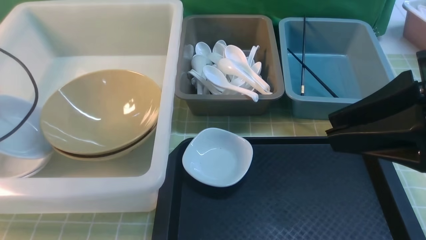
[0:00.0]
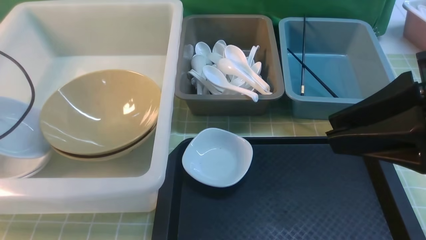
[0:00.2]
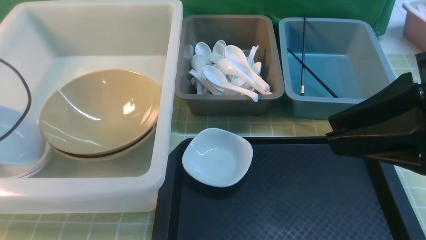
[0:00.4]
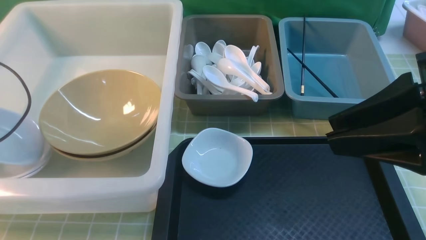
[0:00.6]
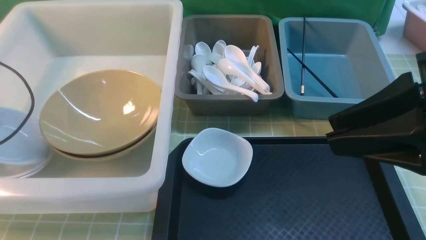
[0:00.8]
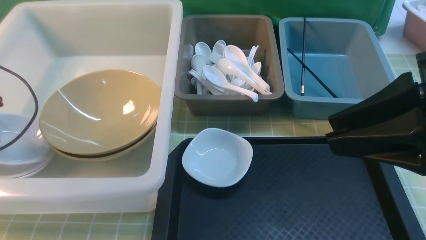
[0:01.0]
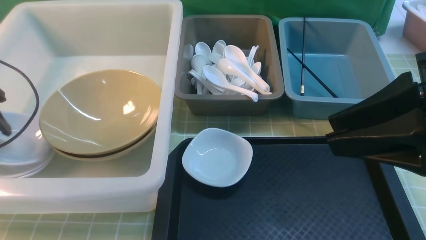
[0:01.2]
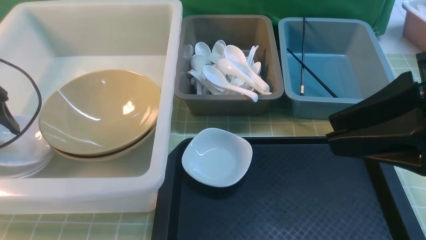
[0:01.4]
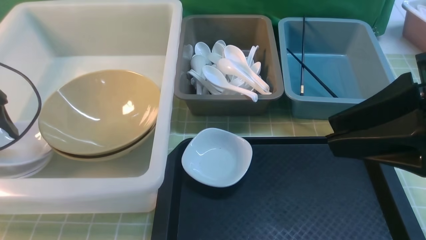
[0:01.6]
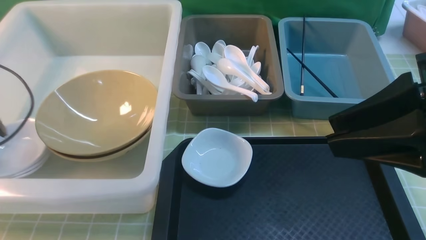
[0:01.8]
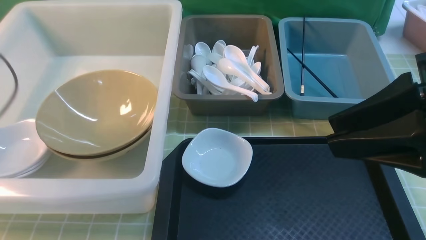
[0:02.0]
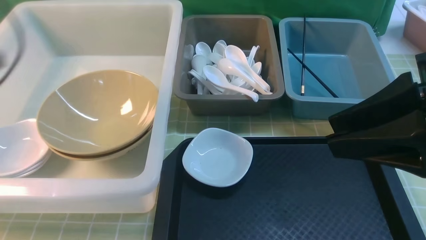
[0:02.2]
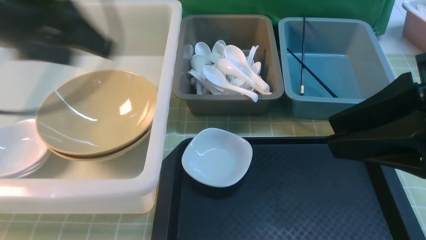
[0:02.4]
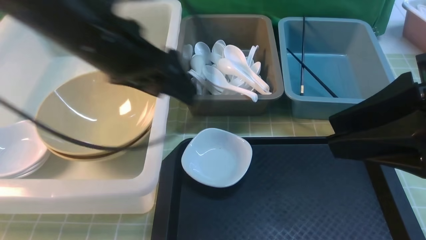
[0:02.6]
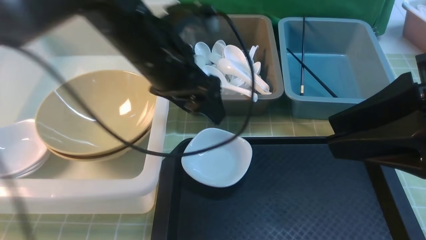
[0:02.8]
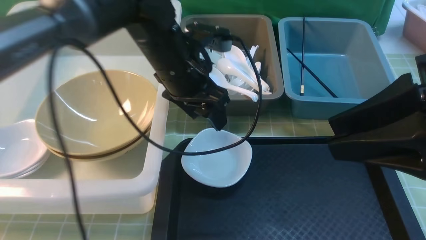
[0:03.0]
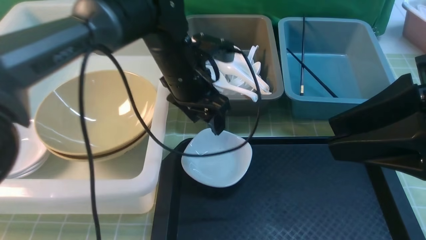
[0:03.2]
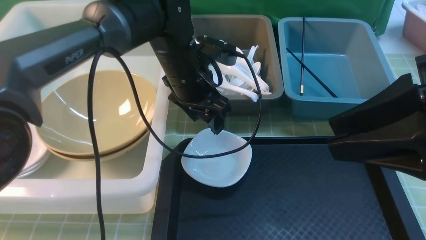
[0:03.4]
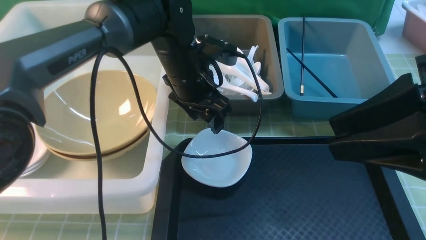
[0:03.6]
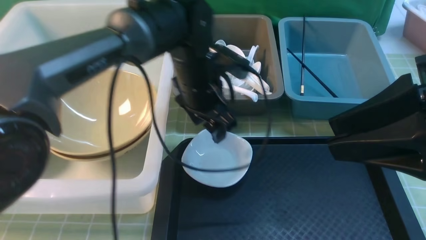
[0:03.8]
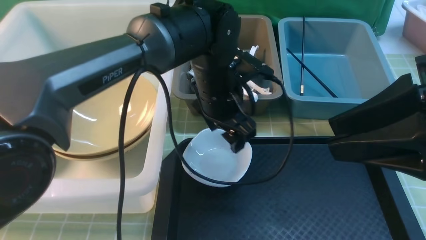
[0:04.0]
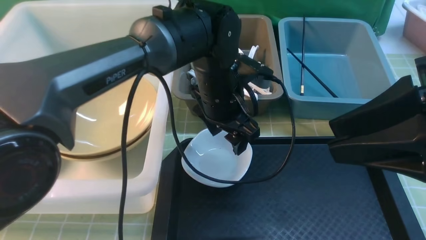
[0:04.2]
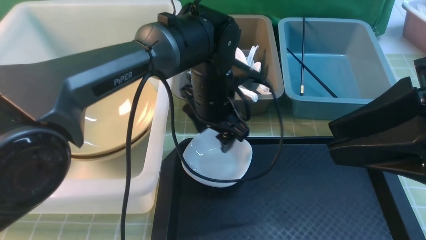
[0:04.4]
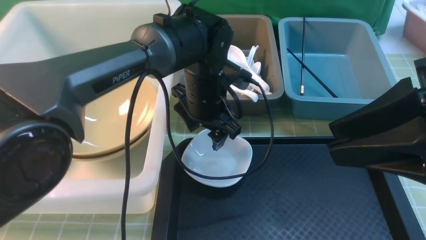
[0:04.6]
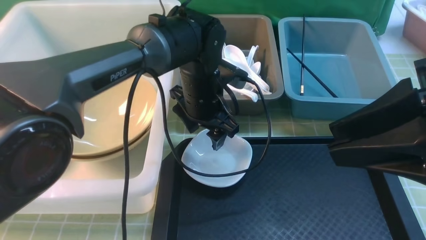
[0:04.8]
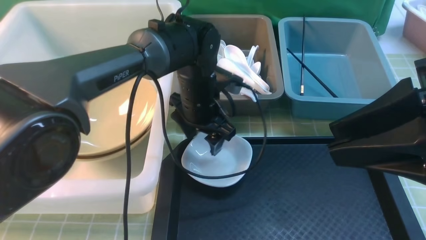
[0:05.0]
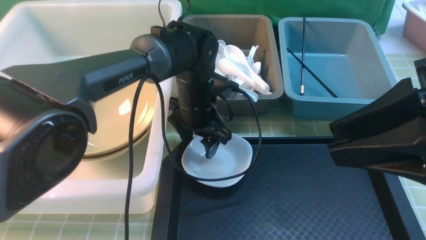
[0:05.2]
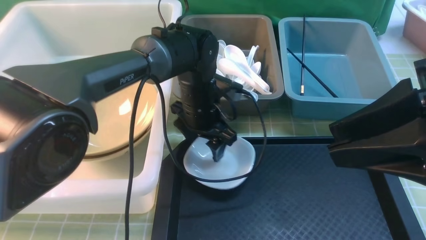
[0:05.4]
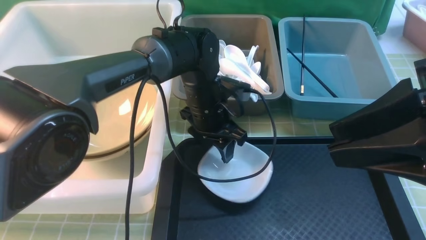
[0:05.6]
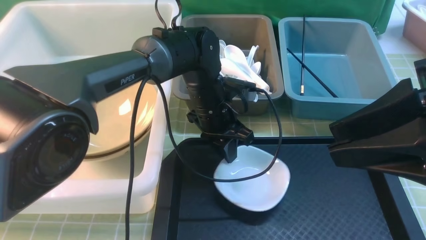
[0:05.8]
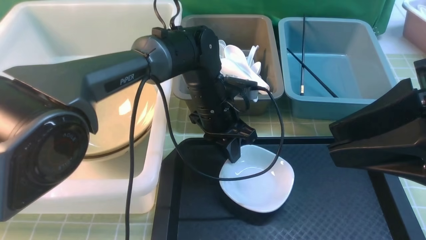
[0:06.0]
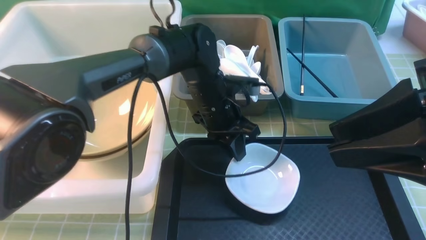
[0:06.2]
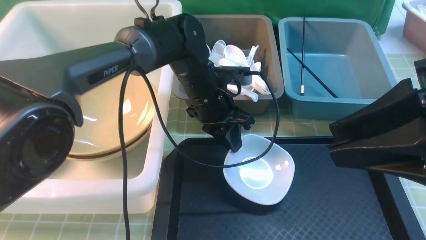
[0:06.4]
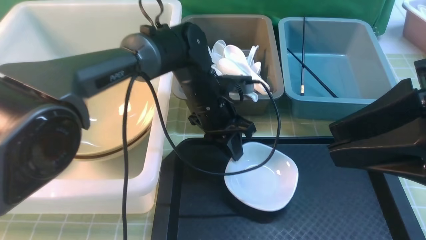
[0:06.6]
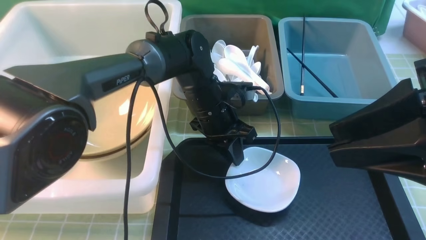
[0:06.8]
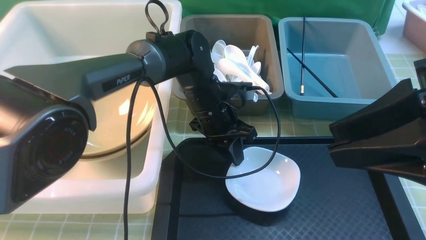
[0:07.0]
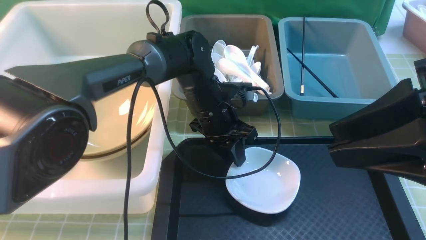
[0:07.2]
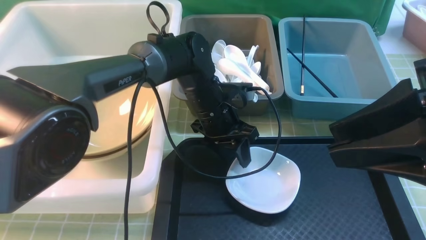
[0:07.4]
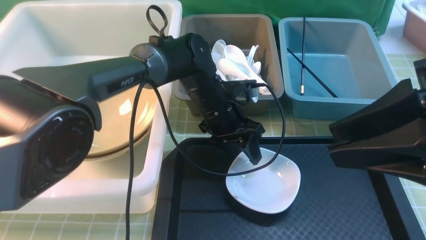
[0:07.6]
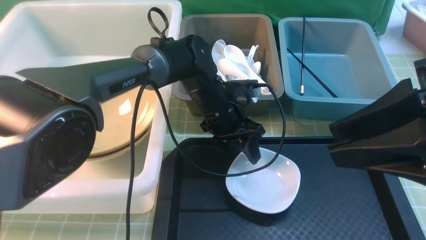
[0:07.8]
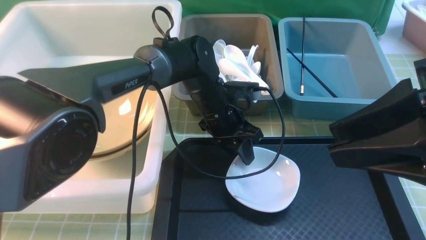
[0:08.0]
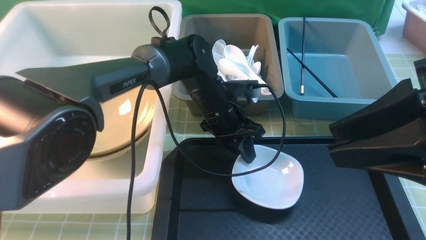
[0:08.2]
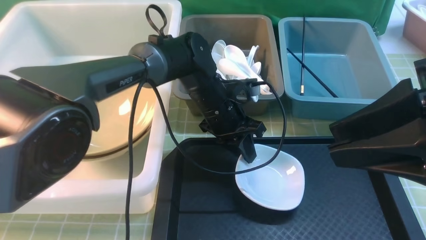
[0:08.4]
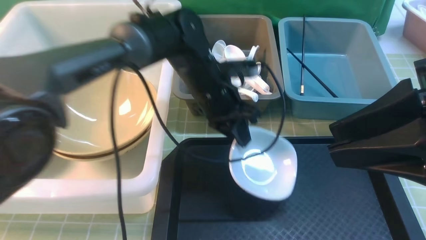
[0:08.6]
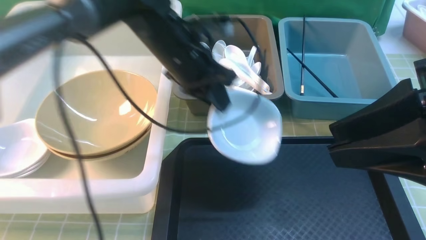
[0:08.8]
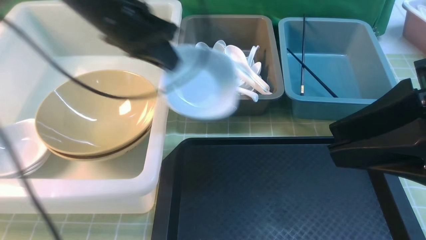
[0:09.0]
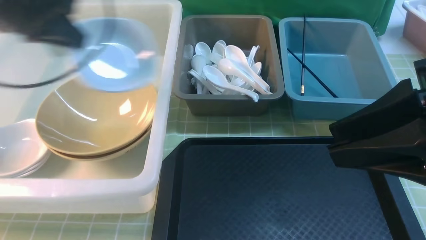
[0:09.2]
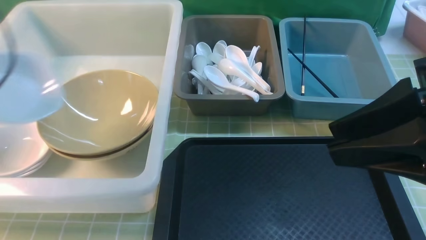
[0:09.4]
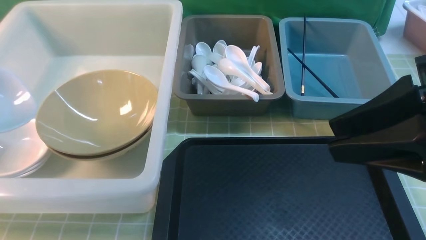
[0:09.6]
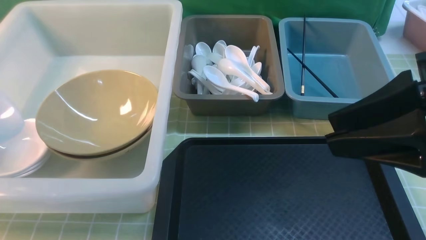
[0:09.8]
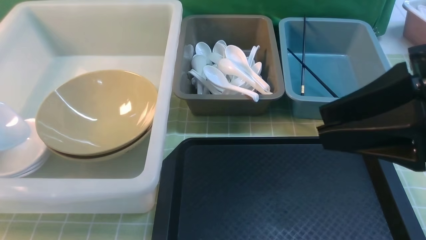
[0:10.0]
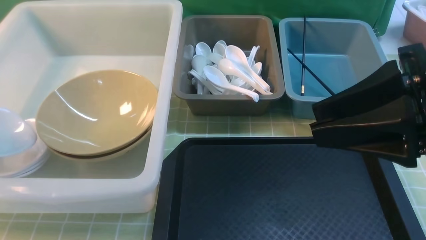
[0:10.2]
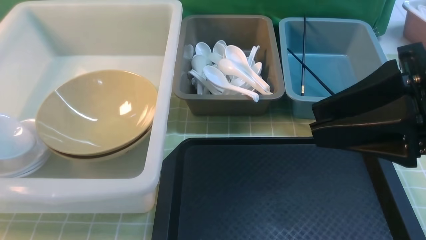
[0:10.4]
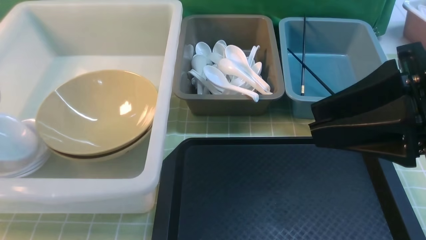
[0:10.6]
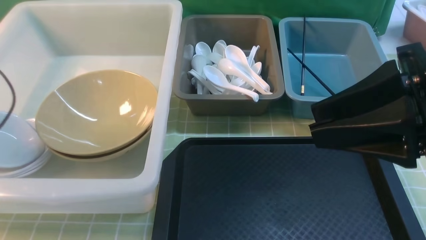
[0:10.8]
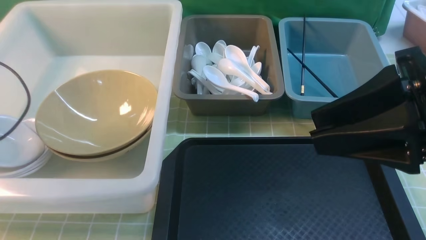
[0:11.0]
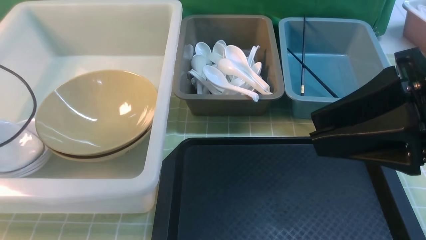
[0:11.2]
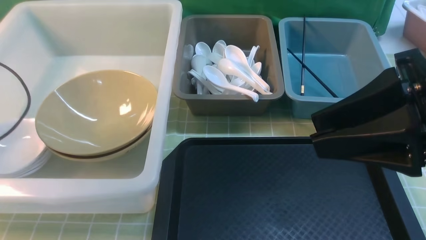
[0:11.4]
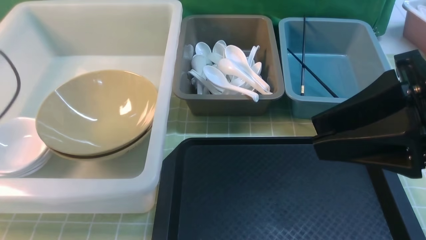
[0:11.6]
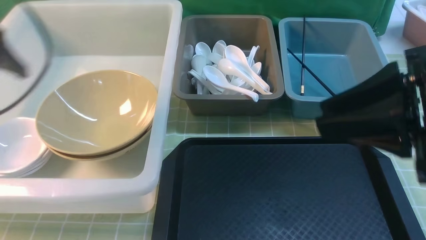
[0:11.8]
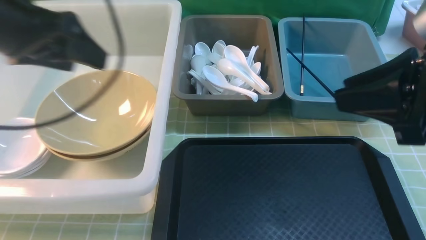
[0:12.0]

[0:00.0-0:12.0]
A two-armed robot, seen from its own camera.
Task of the whole recording: on green table put chopsticks spoon bowls plates into blue grey white boxes.
Step, 0:02.0 to 0:08.6: use the left arm to grab the plate.
0:00.0 to 0:01.6: The left gripper opens up.
0:01.6 to 0:03.0: The left gripper travels to the right by approximately 35 cm.
0:03.0 to 0:04.4: The left gripper is displaced downward and to the right by some 5 cm.
0:04.4 to 0:06.0: The left gripper closes its fingers.
0:06.0 to 0:07.6: The left gripper opens its fingers.
0:07.6 to 0:09.0: The left gripper is displaced upward and to the left by about 25 cm, and closes.
0:09.0 to 0:10.4: The left gripper goes roughly 25 cm to the left.
0:10.4 to 0:12.0: The left gripper goes roughly 25 cm to the right and upward, and opens its fingers.

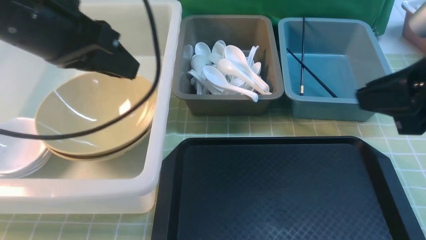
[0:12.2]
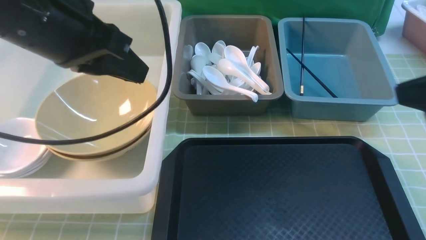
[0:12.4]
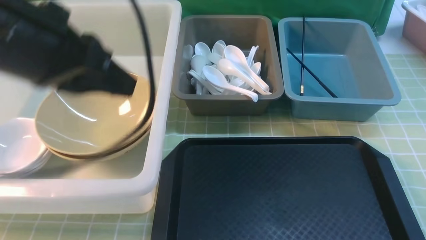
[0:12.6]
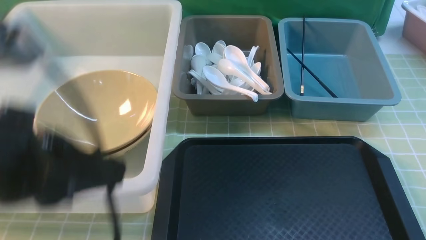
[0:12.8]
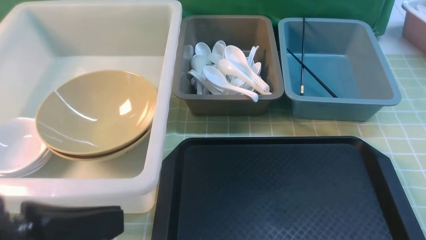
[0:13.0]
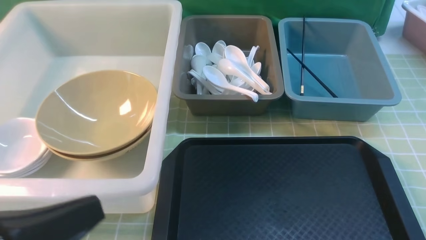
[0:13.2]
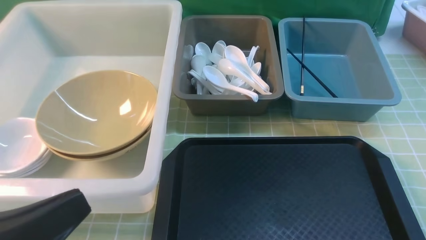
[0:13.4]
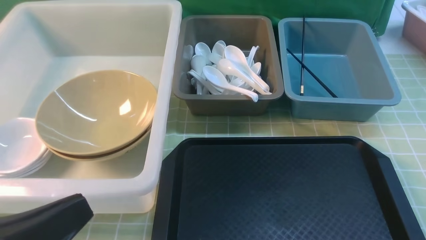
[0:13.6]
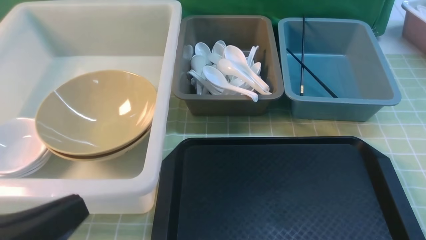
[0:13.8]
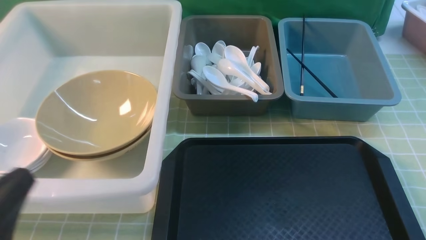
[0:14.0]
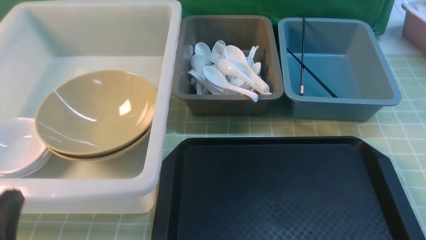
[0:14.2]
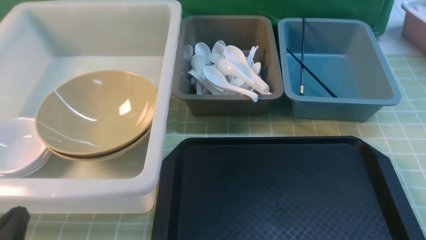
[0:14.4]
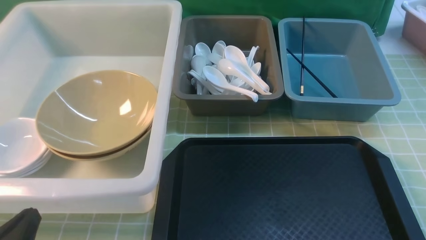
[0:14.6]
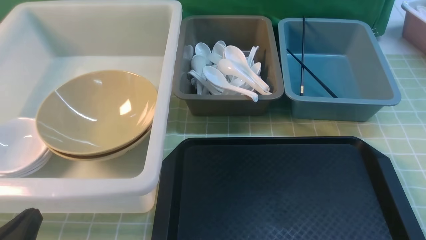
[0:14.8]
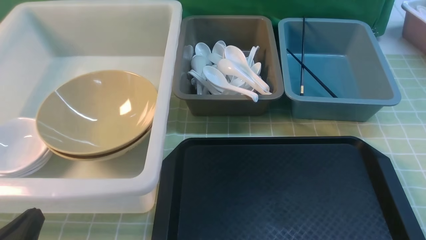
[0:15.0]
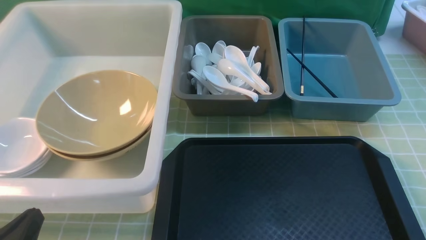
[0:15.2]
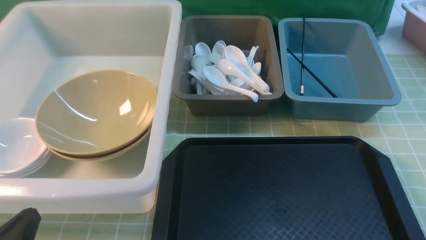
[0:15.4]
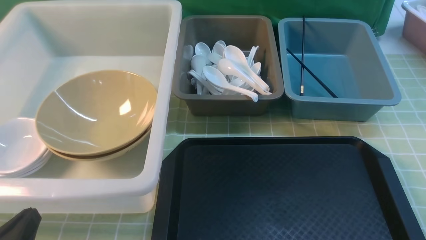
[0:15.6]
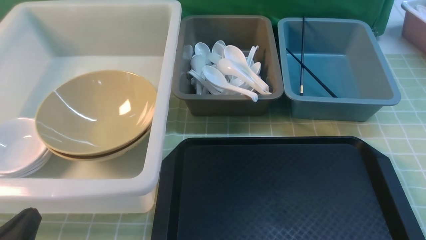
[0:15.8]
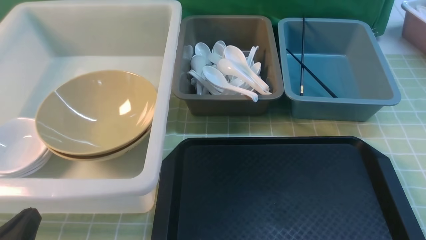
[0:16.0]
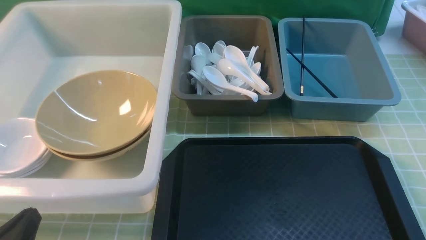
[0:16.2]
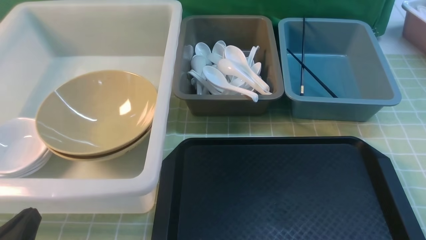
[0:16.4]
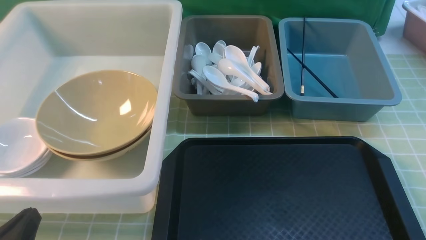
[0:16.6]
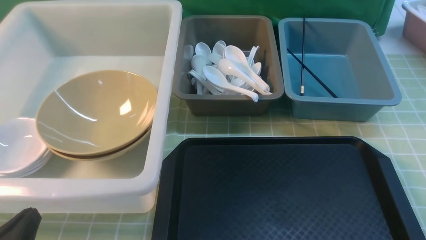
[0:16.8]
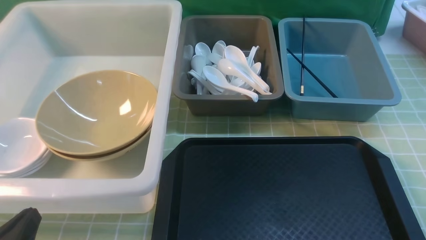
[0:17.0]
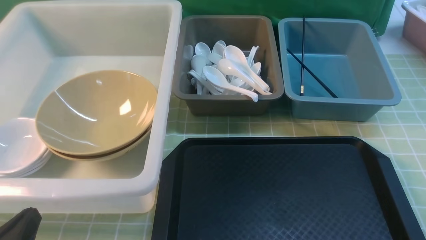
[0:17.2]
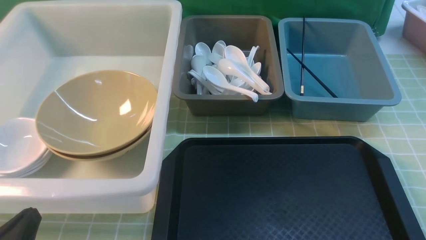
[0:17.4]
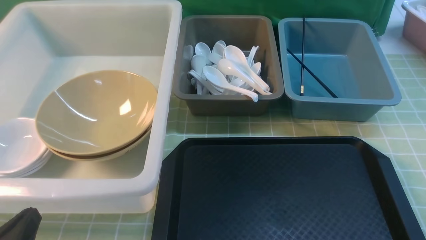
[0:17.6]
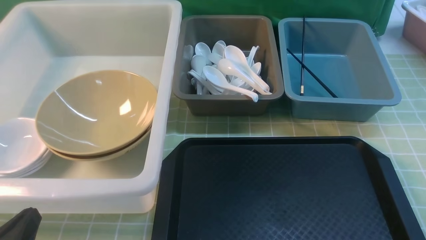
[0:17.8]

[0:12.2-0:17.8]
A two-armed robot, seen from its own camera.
Task of the whole recording: on green table put chopsticks spoon bowls plates into blue grey white boxes.
0:12.2 to 0:13.6: The right gripper goes approximately 20 cm backward, downward and to the right. Meanwhile the left gripper travels backward and downward by some 25 cm.
0:13.6 to 0:15.0: The left gripper moves downward, about 10 cm.
